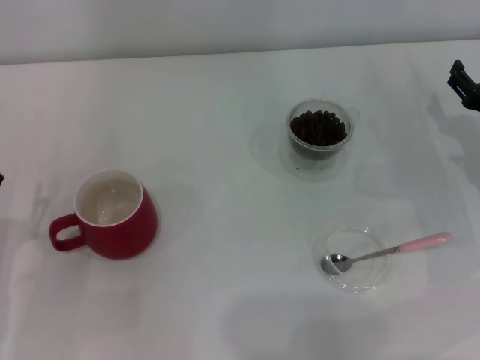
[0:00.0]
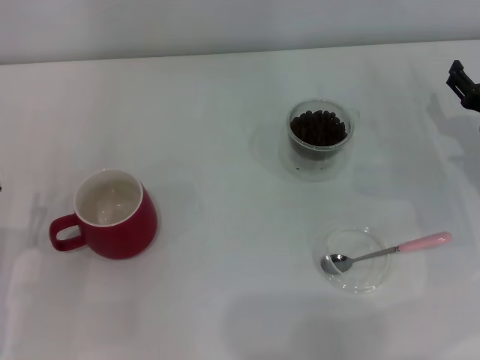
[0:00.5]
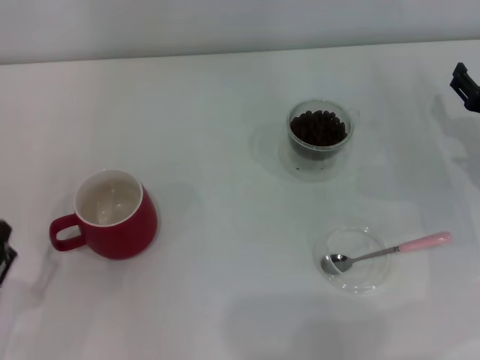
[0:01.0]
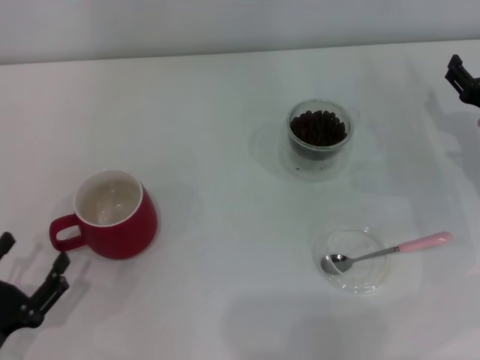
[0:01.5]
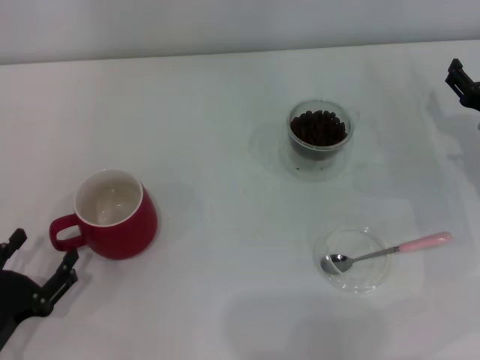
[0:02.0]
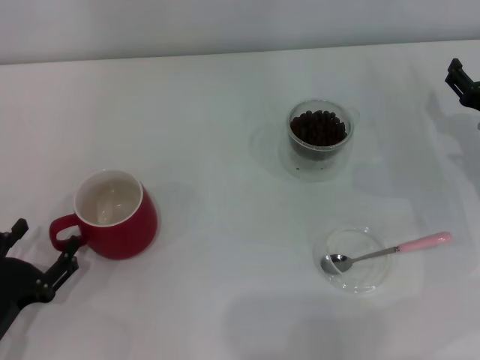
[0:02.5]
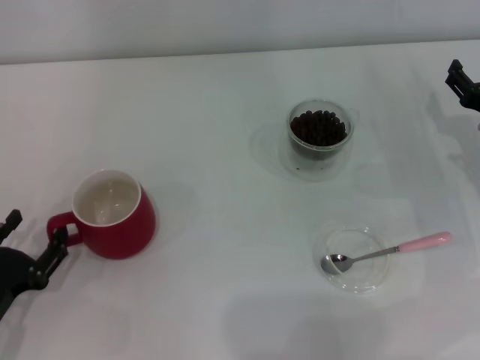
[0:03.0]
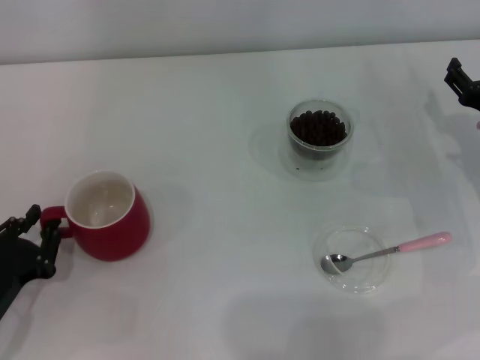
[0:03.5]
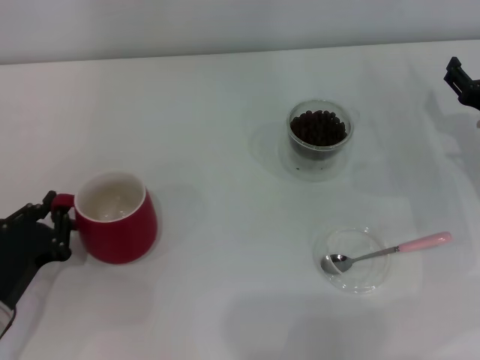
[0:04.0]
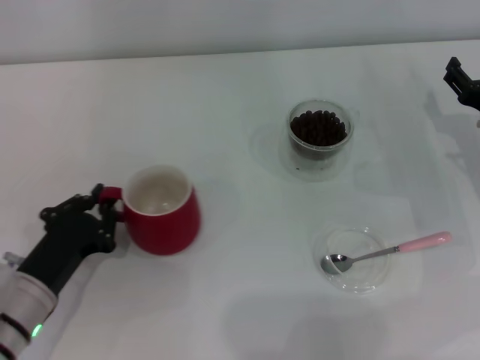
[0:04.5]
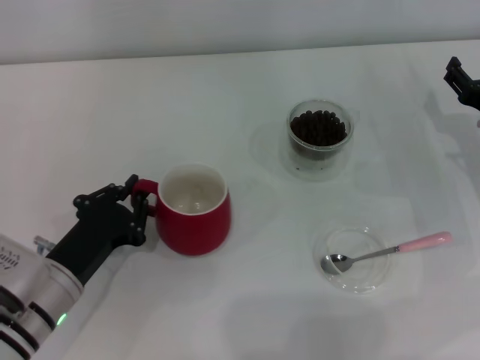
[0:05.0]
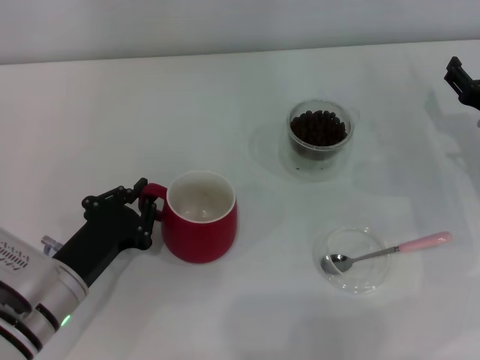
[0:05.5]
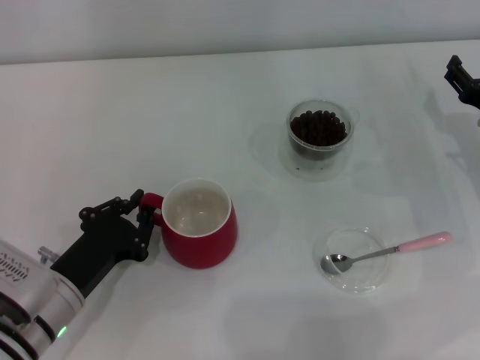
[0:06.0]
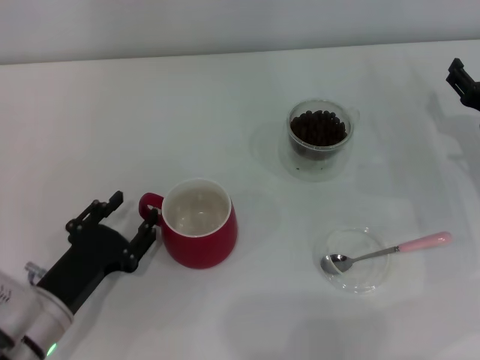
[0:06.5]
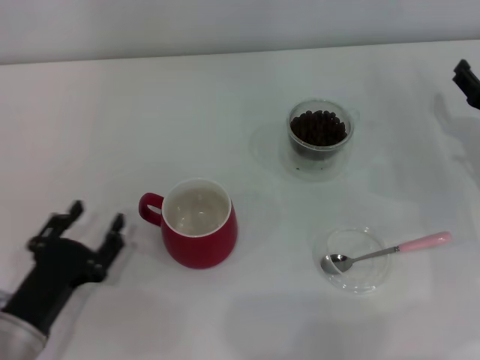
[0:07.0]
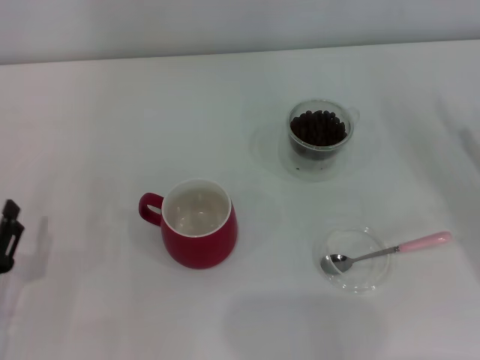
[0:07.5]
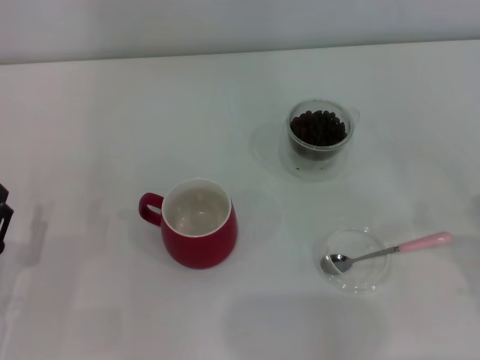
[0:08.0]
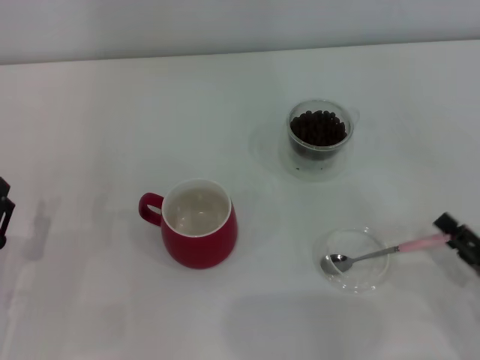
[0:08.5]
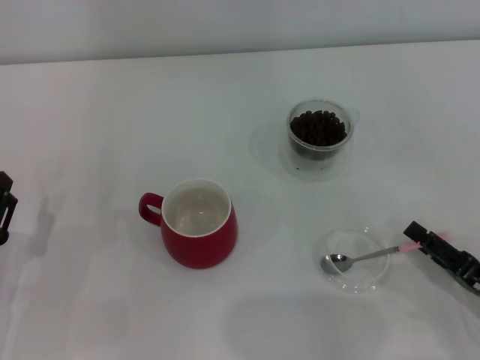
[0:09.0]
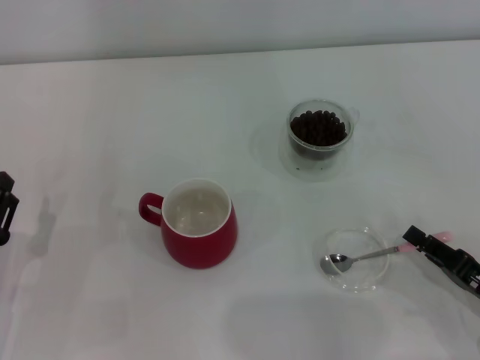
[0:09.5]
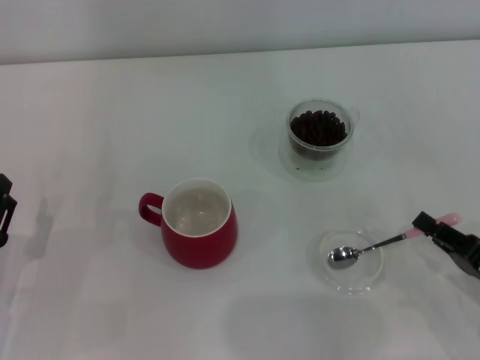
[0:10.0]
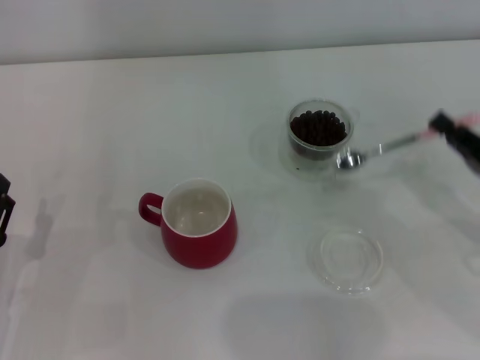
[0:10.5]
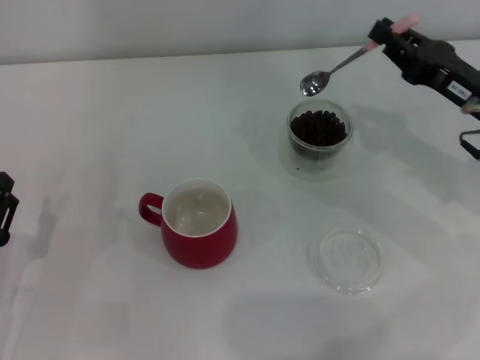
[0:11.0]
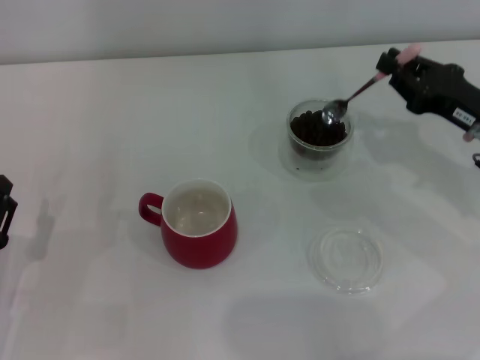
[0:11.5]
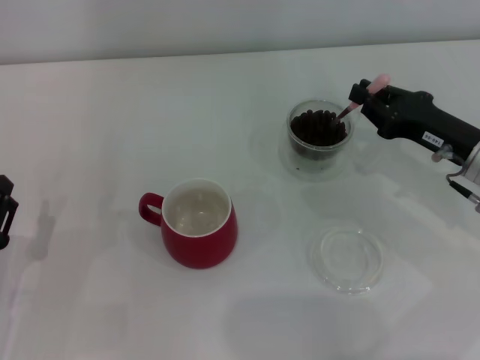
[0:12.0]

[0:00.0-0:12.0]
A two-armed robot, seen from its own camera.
Task of the whole recording: Use a pink spoon to take out the coffee beans from the glass and pour them into the red cup.
Step, 0:00.0 to 0:06.5: Move the cup to the center of view with the left gripper.
Step, 0:07.0 to 0:10.0: Pick up the spoon with the right gripper.
0:00.0 to 0:02.0: The left gripper heads backward, covering about 5 cm.
0:02.0 to 0:04.0: The left gripper shifts approximately 5 cm forward, and closes.
0:04.0 to 0:06.0: The left gripper heads to the right, covering roughly 5 cm.
0:06.0 to 0:08.0: The left gripper travels to the left by some 10 cm, and opens up. Meanwhile the right gripper moves backward, some 20 cm.
0:08.0 to 0:10.0: The right gripper closes its fingers.
0:10.0 to 0:12.0: The right gripper shifts some 15 cm forward.

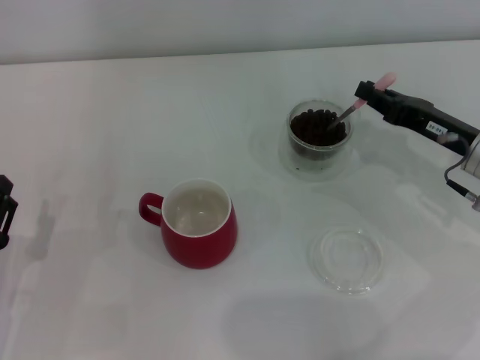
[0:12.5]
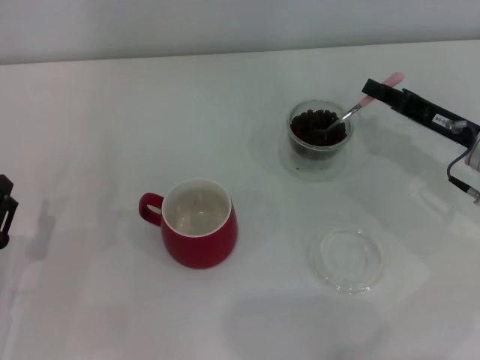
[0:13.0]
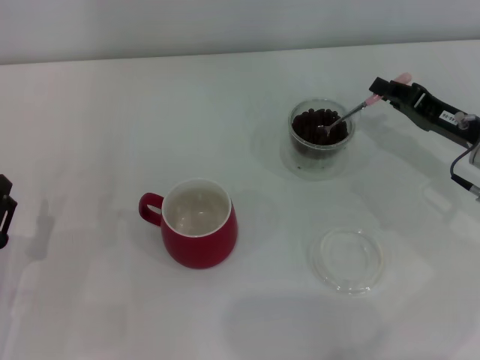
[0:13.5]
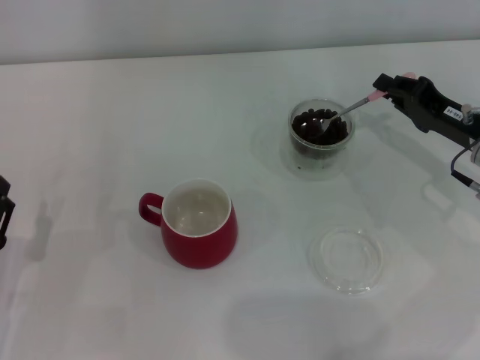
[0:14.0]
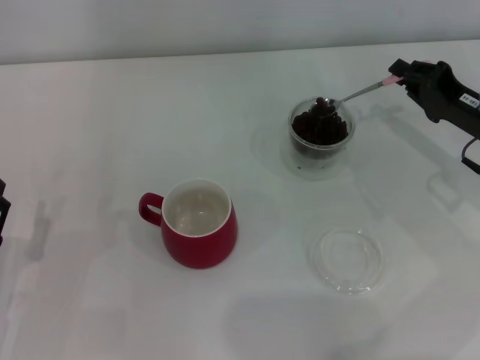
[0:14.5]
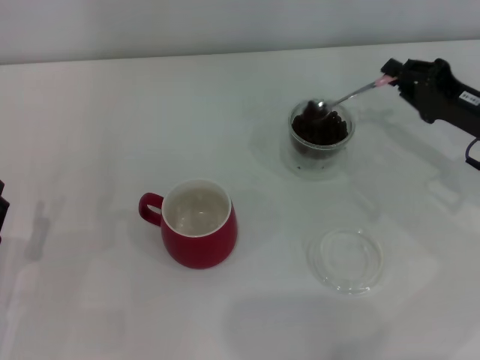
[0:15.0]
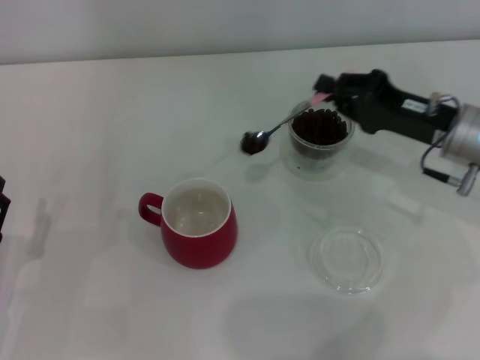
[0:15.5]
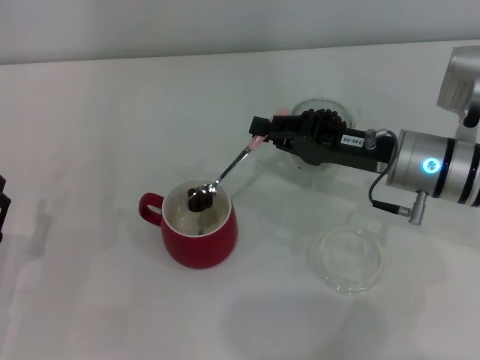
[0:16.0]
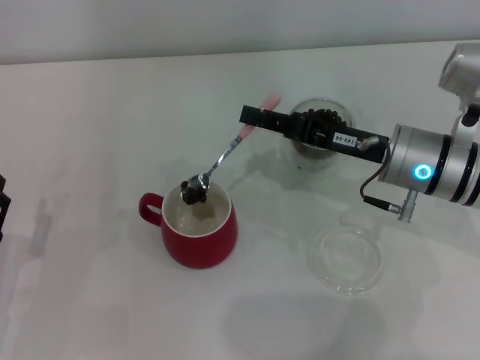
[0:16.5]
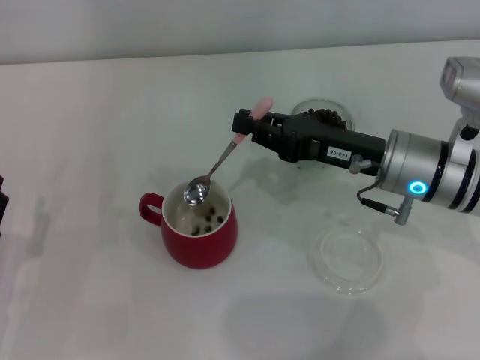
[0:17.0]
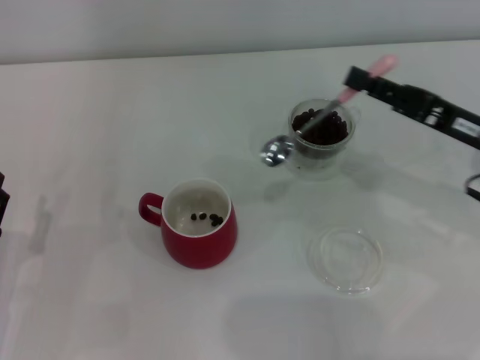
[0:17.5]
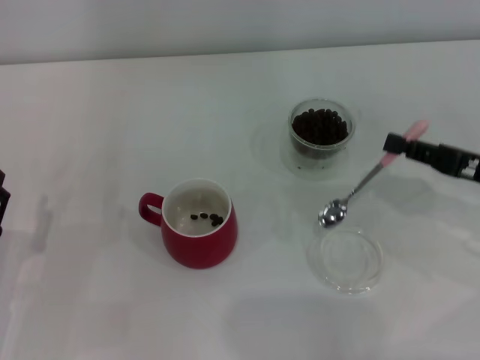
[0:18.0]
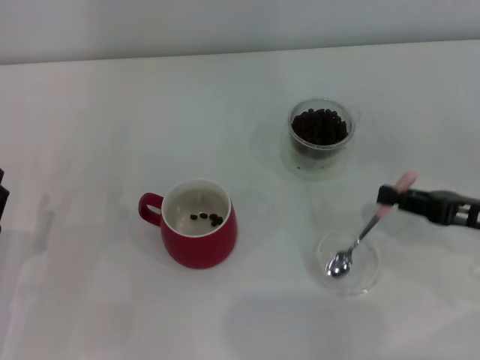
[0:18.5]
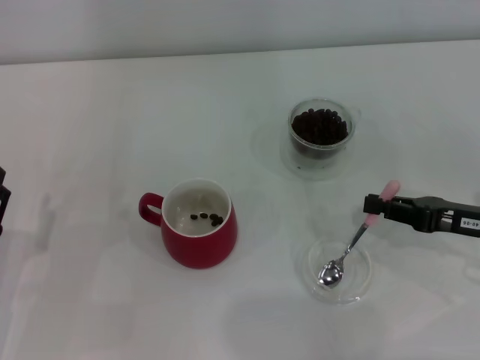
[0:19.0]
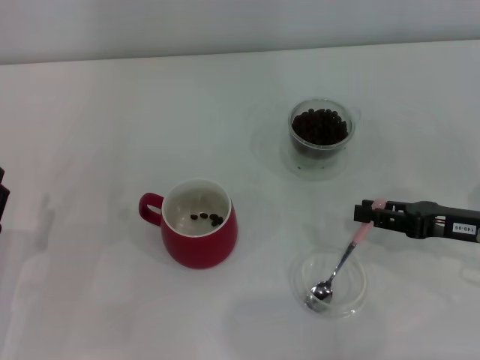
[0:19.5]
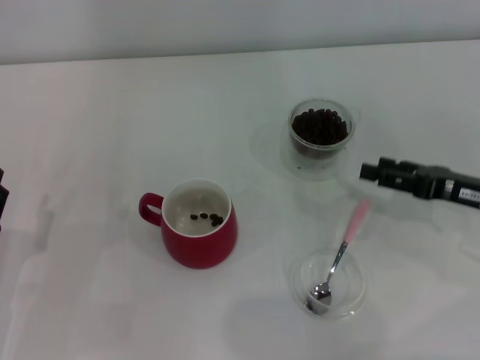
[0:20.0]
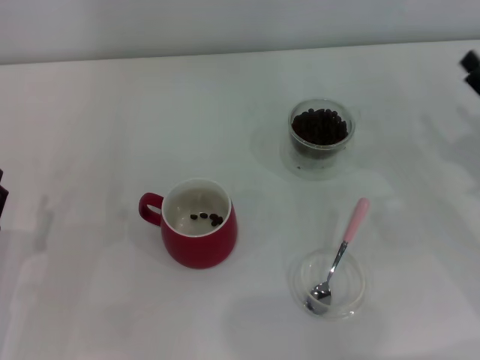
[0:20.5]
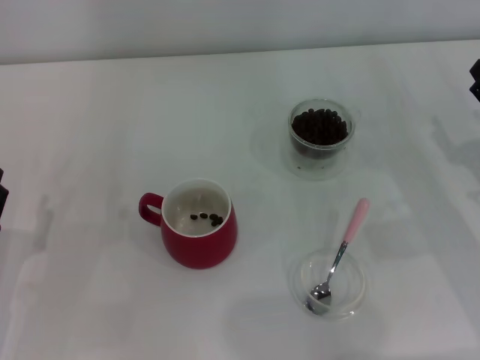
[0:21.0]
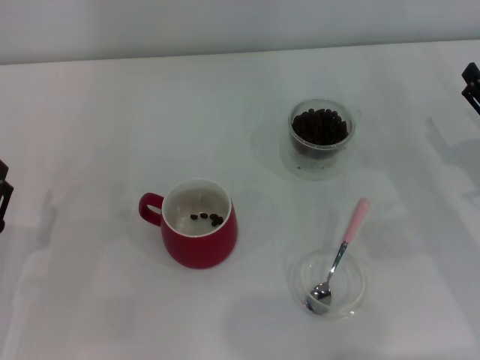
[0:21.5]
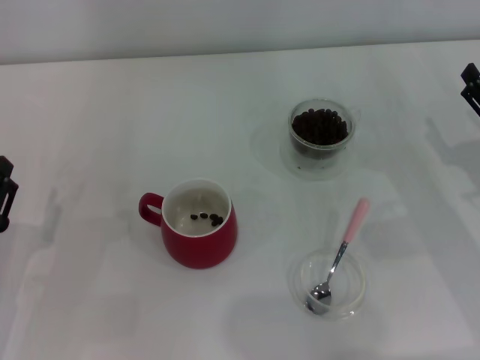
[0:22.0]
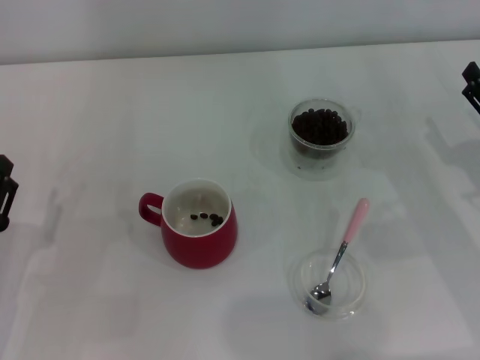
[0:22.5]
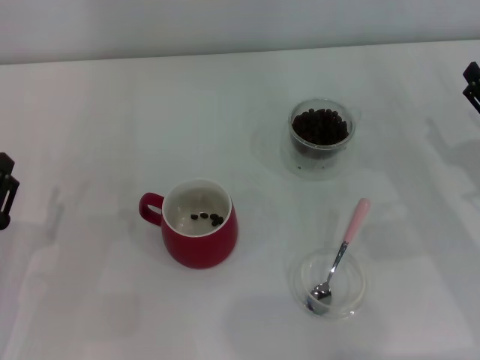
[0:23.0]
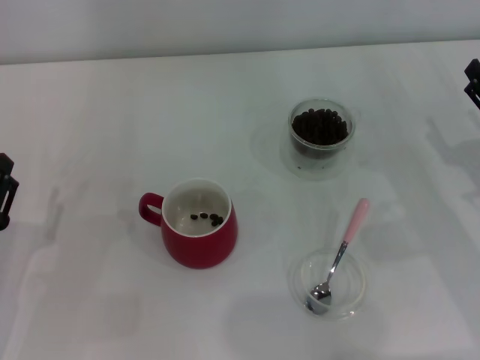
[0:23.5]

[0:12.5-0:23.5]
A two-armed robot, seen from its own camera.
Task of the whole recording: Use a pink spoon to take out the coffee beans from the glass and pour them into the red cup.
Step, 0:12.5 to 0:17.0: Scoop a spoonful of beans into the cup with the right gripper.
Step, 0:17.5 to 0:19.5: Place the spoon back in its original place with the right gripper.
0:14.5 to 0:16.0: The right gripper heads to the left, covering approximately 10 cm.
0:16.0 to 0:18.0: The right gripper moves to the right and backward, roughly 15 cm.
0:18.0 to 0:20.0: The right gripper opens up.
0:20.0 to 0:21.5: The right gripper opens.
0:21.5 to 0:23.5: Both grippers stay about where they are.
